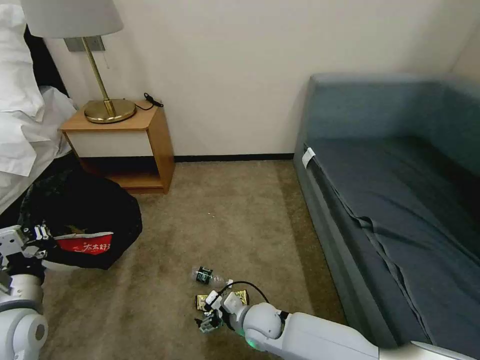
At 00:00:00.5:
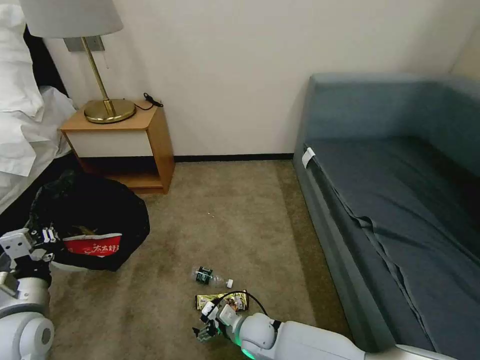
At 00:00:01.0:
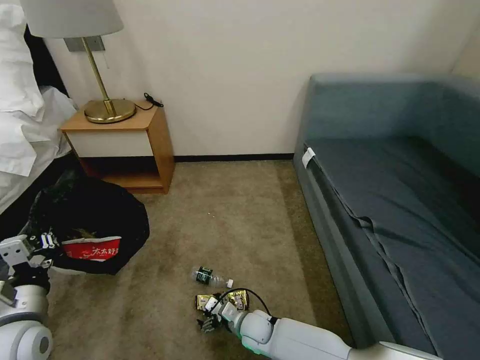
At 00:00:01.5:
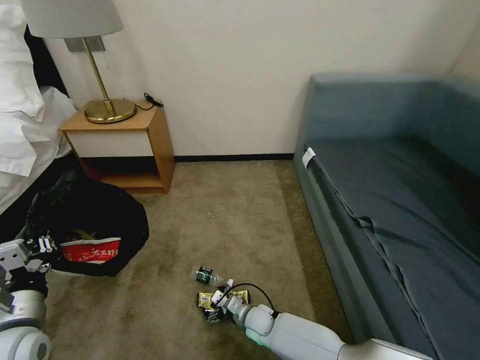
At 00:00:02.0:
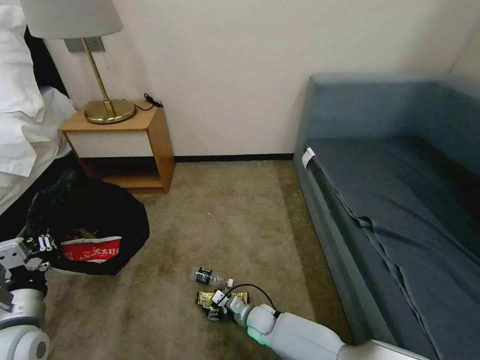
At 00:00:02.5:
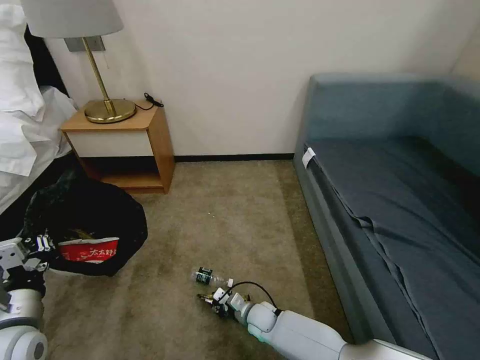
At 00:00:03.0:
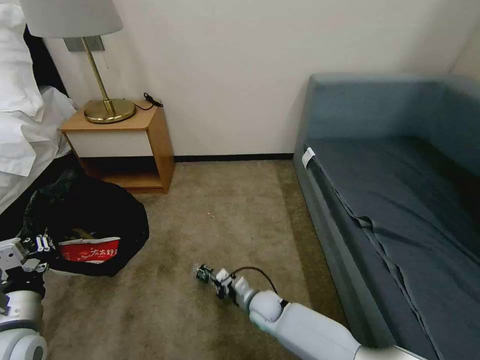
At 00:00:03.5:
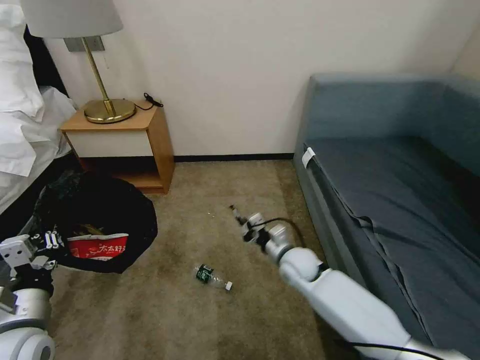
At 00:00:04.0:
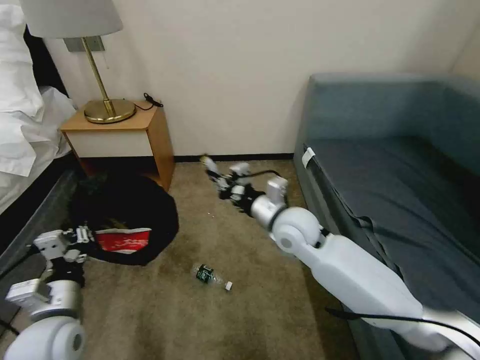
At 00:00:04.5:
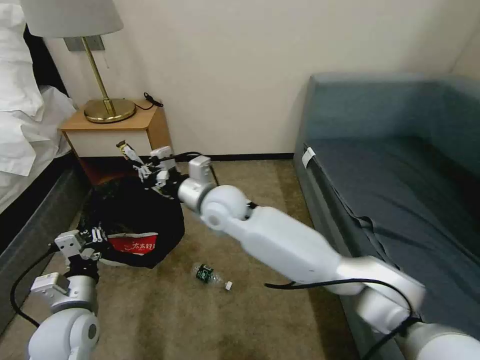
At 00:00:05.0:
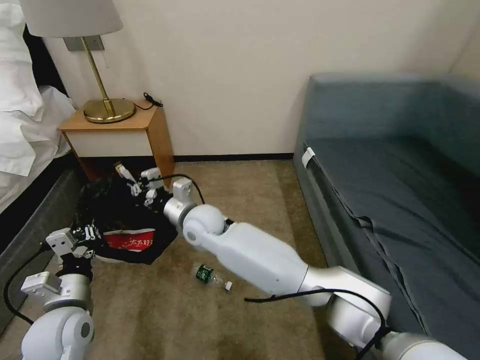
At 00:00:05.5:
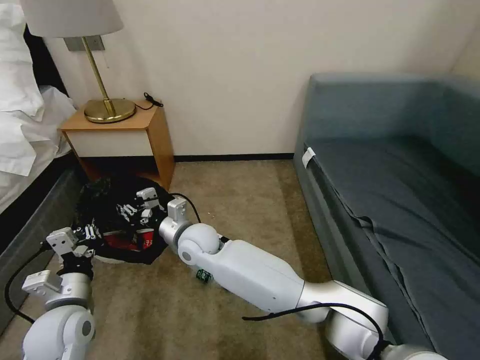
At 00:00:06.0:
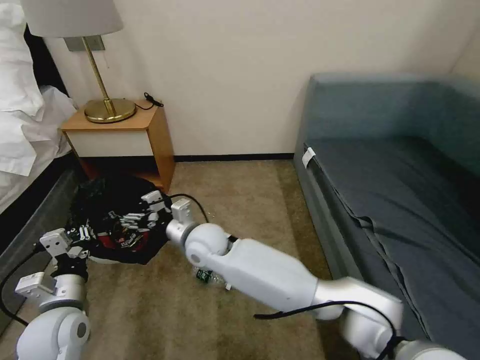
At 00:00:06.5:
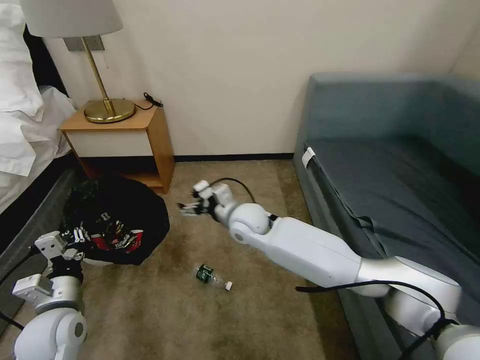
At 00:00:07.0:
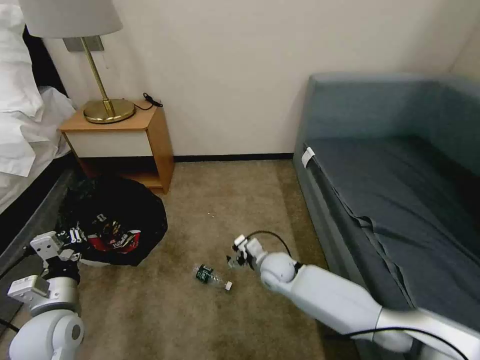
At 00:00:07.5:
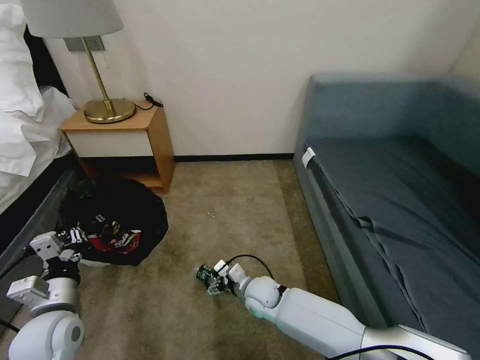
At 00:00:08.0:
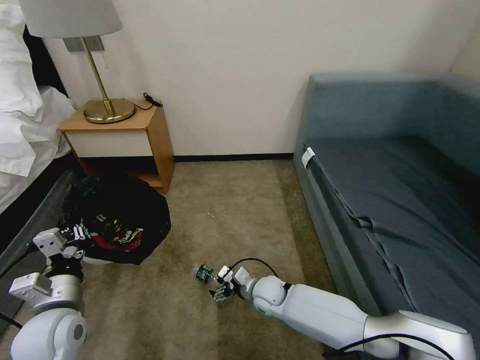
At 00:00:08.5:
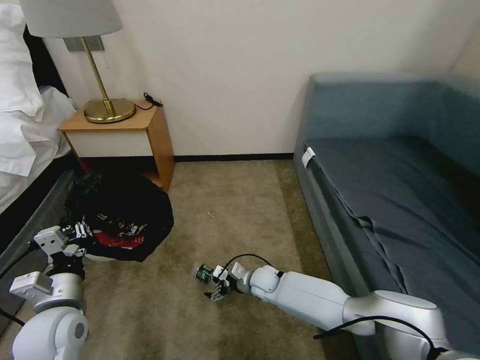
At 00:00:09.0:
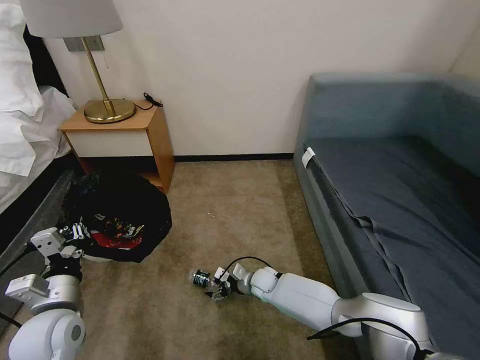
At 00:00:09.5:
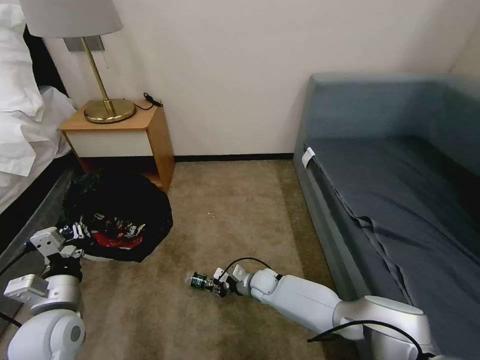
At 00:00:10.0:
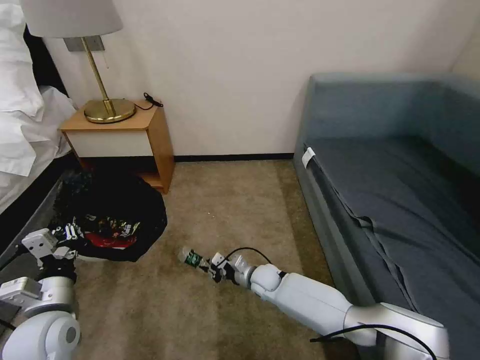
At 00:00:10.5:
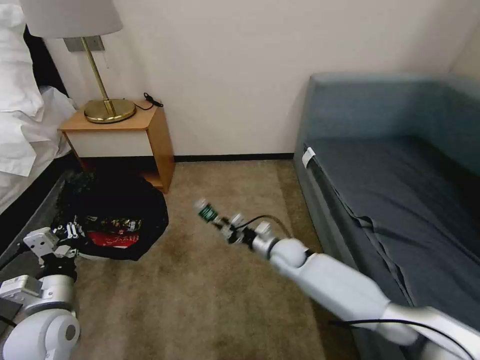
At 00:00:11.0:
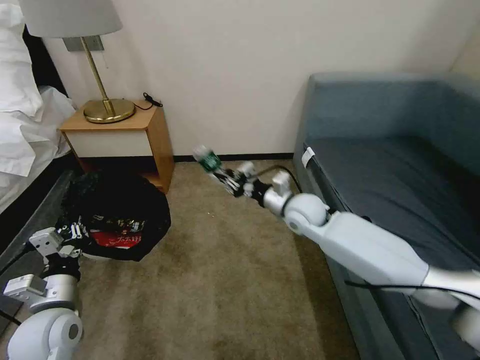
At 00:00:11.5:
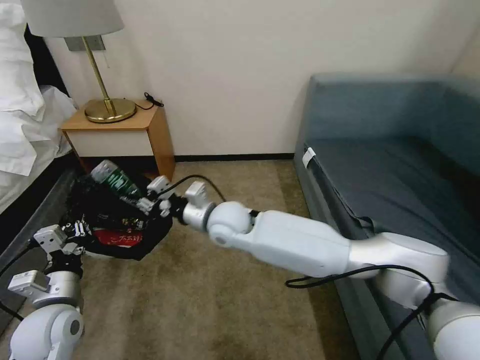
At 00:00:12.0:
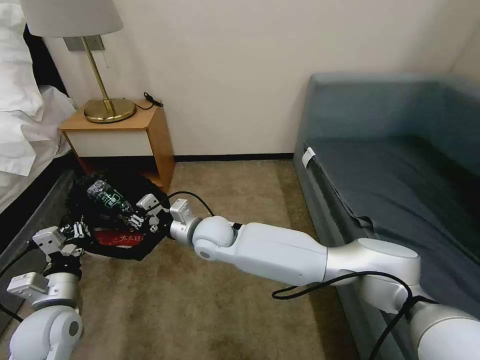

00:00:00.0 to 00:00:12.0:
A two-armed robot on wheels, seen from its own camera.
Task of the whole recording: Pick up the trash bin, then pick up the garbage on the floor and place it into the trash bin.
00:00:00.0 to 00:00:02.0: The right gripper heads downward, covering approximately 10 cm.
00:00:02.0 to 00:00:04.0: The left gripper travels to the right by about 5 cm. The right gripper heads upward, covering about 35 cm, and closes up.
00:00:04.0 to 00:00:06.0: The right gripper shifts about 20 cm to the left, and opens up.
00:00:06.0 to 00:00:08.0: The right gripper shifts about 25 cm downward and to the right.
00:00:08.0 to 00:00:10.0: The right gripper closes.
00:00:10.0 to 00:00:12.0: The right gripper travels upward and to the left by some 25 cm.

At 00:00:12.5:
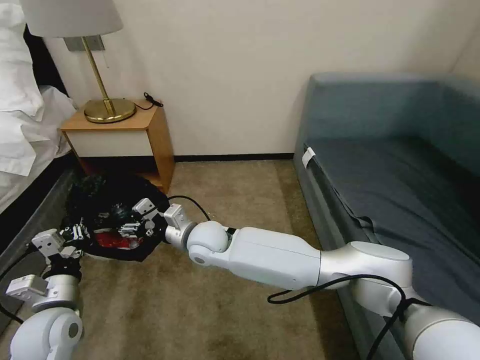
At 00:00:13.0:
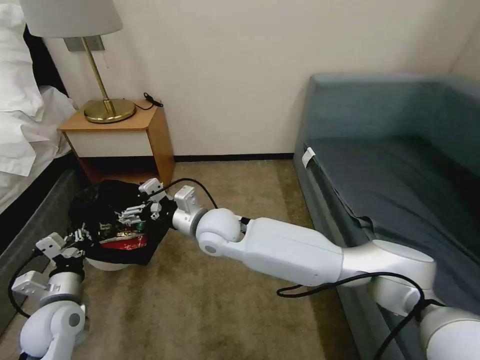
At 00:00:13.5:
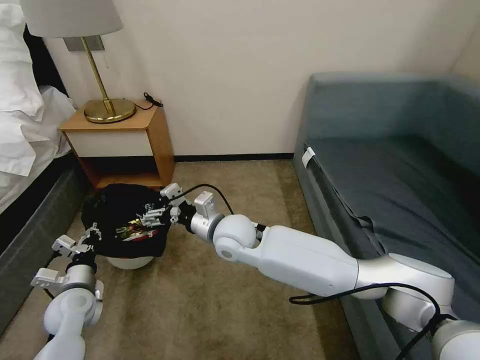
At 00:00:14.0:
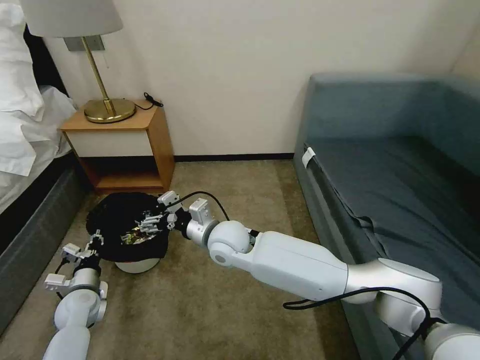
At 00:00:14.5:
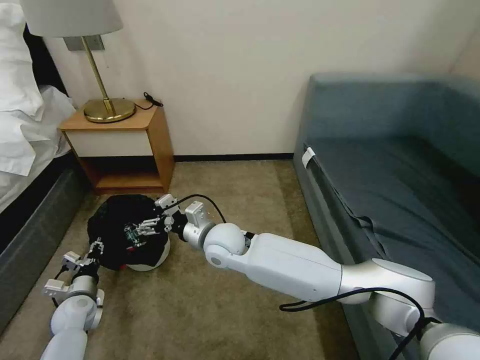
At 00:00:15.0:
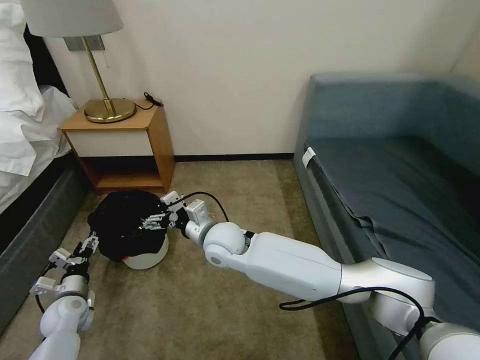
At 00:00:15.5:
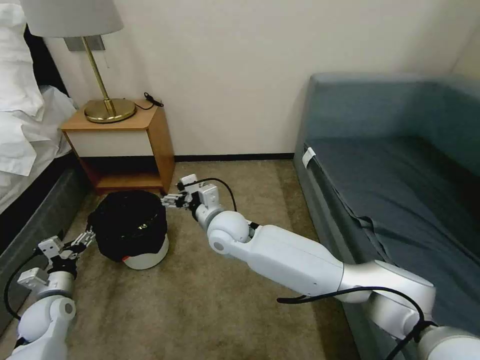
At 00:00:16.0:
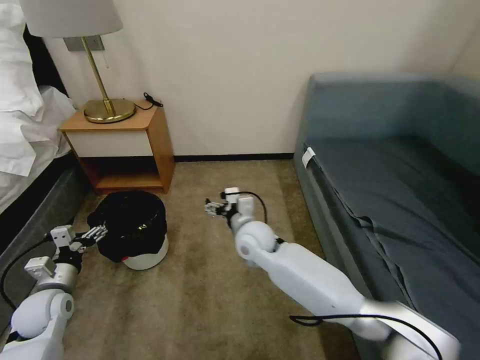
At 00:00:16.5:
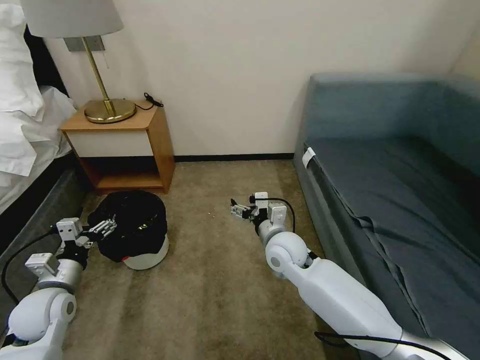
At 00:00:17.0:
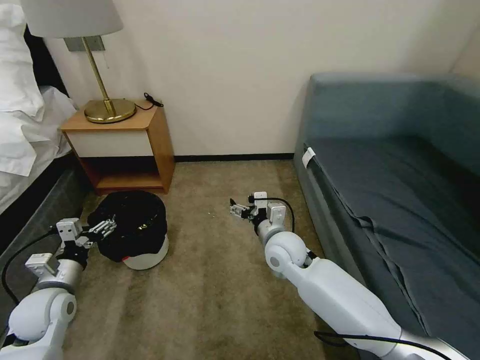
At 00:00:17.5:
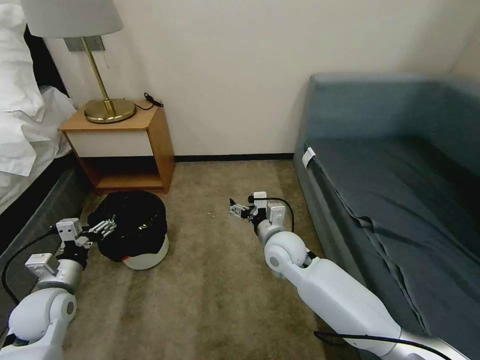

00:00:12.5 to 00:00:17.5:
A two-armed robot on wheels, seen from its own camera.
Task of the whole recording: Pick up the trash bin, then pick up the garbage on the floor and place it into the trash bin.
00:00:12.5 to 00:00:15.0: The left gripper travels downward, to the left and forward by approximately 20 cm, and opens up.
00:00:15.0 to 00:00:17.5: The left gripper goes approximately 15 cm upward. The right gripper heads to the right, covering about 15 cm.
